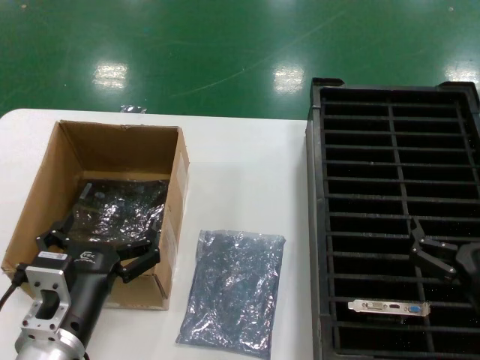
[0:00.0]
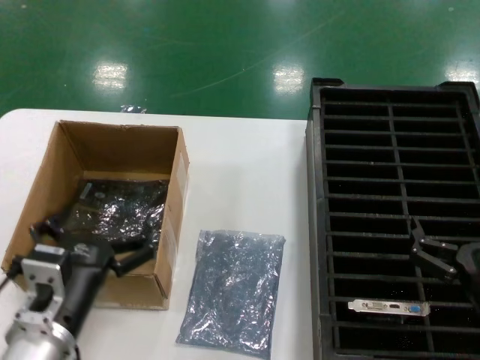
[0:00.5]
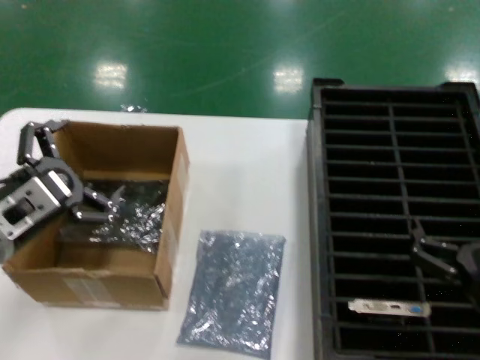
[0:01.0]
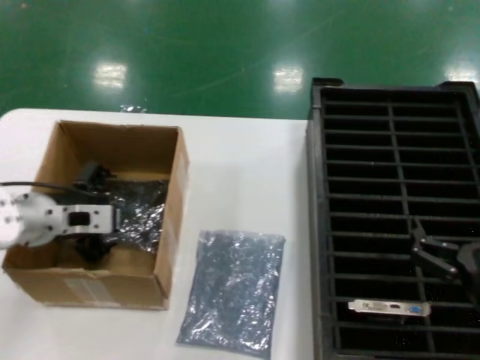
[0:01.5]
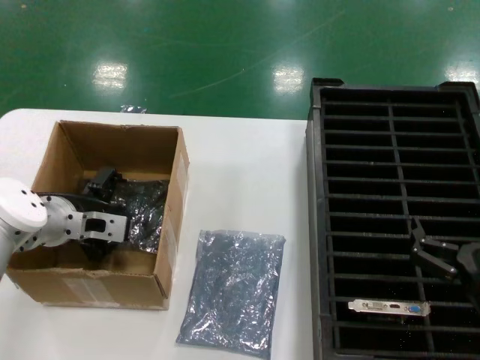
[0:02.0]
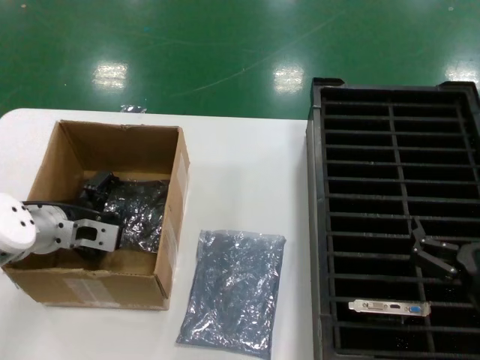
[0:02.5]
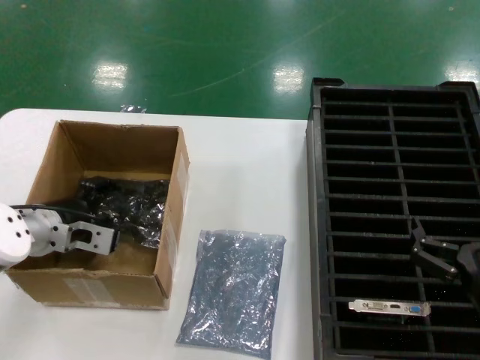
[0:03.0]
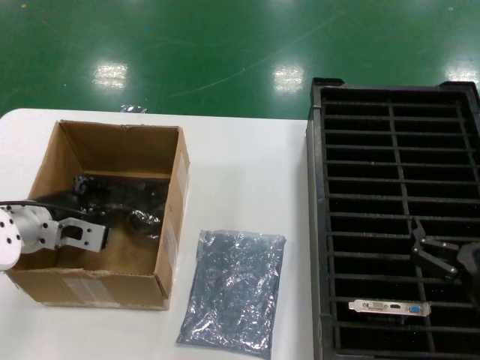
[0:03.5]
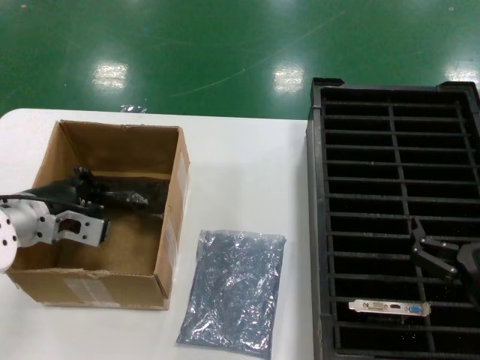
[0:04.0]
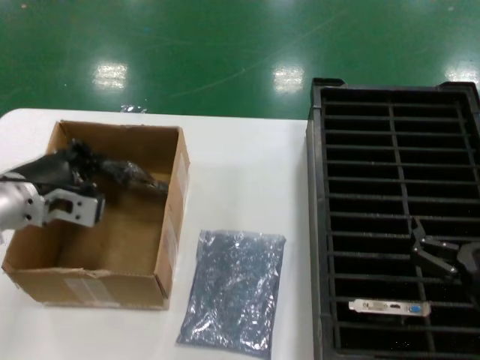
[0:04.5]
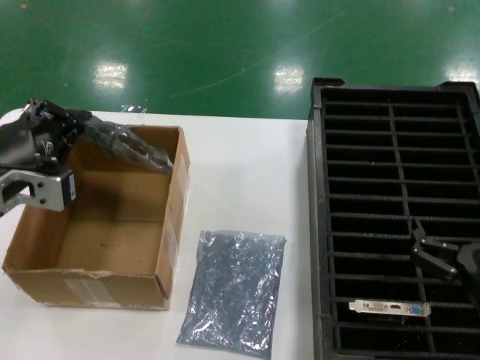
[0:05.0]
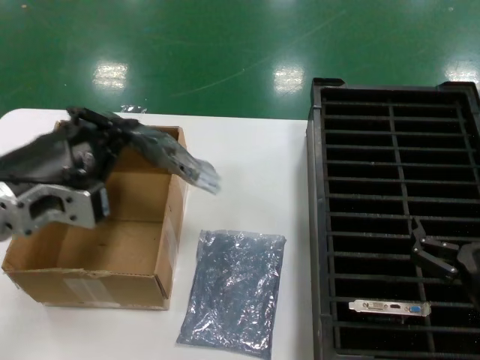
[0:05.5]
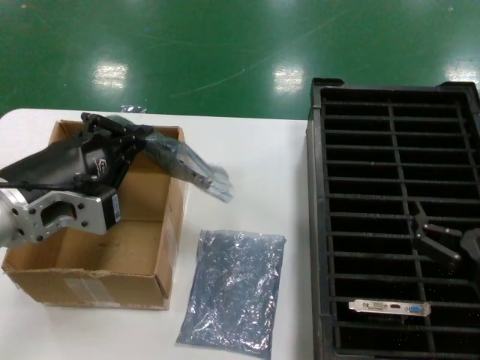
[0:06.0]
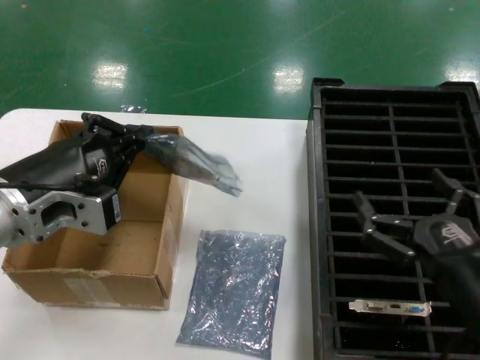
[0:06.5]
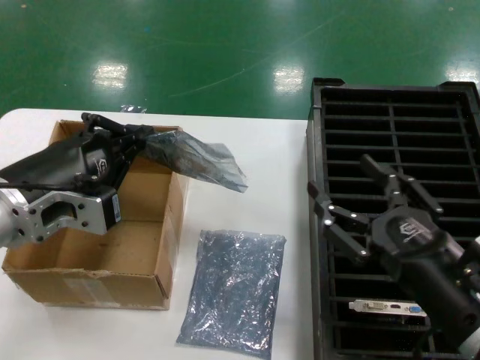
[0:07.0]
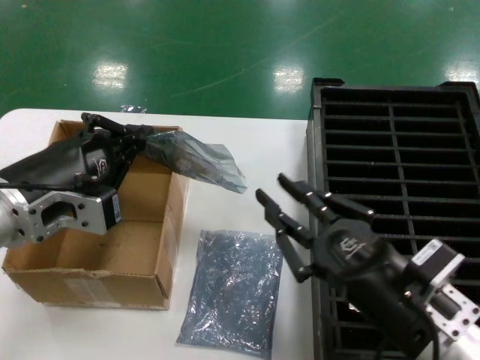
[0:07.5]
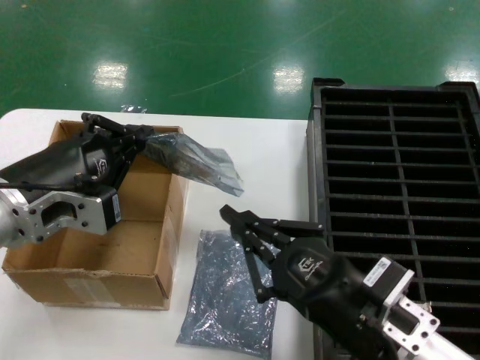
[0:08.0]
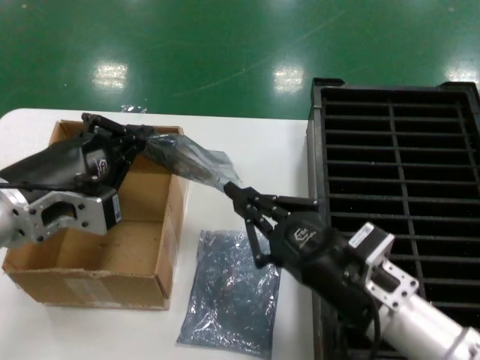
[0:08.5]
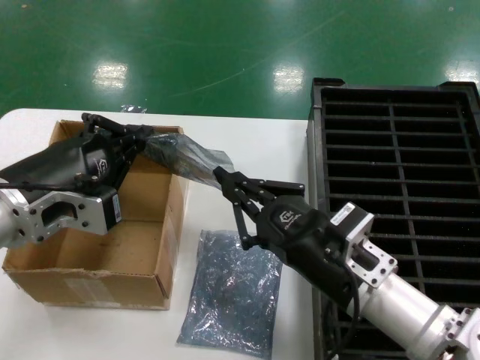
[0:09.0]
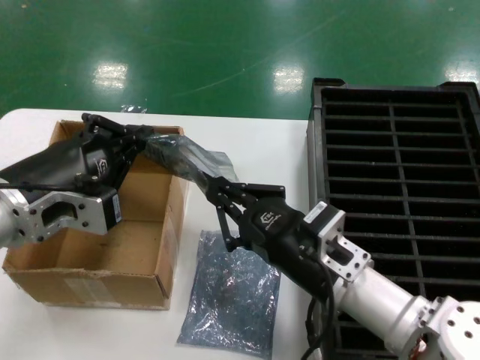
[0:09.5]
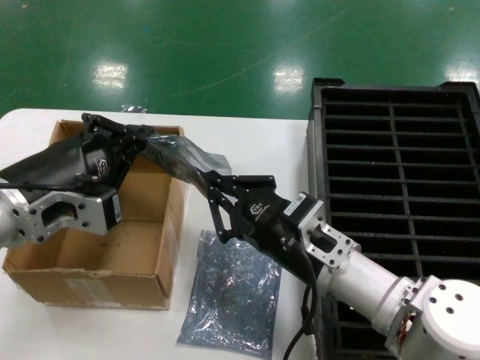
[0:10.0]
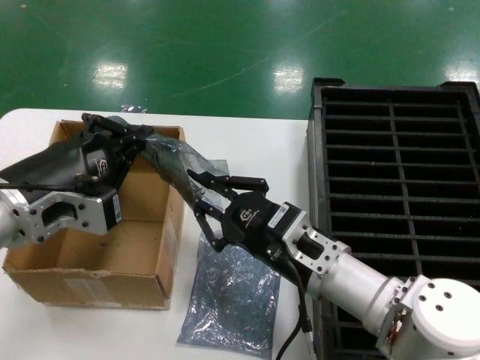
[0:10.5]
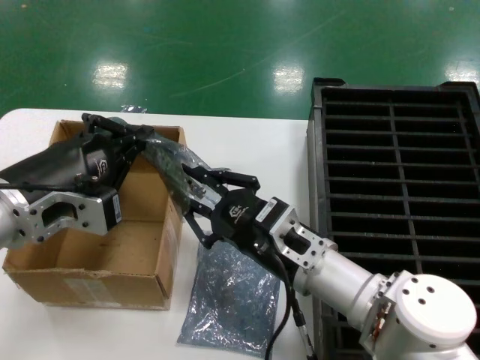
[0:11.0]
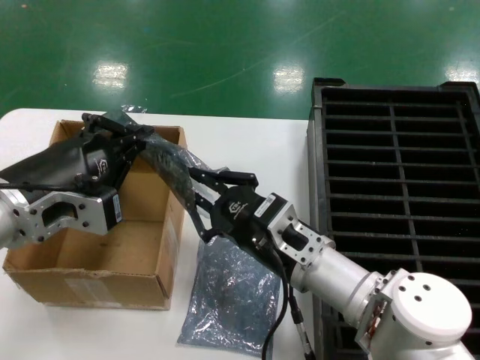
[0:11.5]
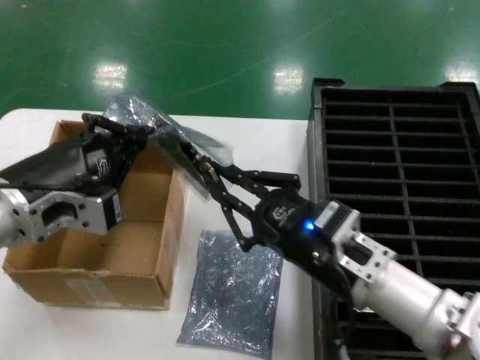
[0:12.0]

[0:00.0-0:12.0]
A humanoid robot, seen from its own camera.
Task of the whole recording: take out graphics card from box remove packaging put into black container.
Step, 0:00.0 to 0:03.5: Grasp the bag.
Step, 0:04.0 to 0:05.5: Lift the bag.
0:00.0 to 0:02.0: The left hand moves forward and to the left, roughly 25 cm.
0:02.0 to 0:04.0: There are only small adjustments of the hands.
0:04.0 to 0:06.0: The left hand goes some 15 cm backward, upward and to the right.
0:06.0 to 0:08.0: The right hand heads to the left, covering some 10 cm.
0:08.0 to 0:10.0: The right hand travels forward and to the left by some 10 cm.
0:10.0 to 0:12.0: The hands stay close to where they were, moving slightly.

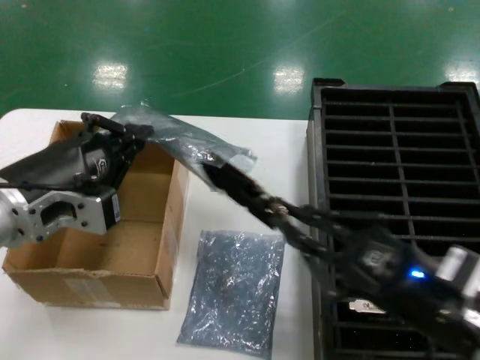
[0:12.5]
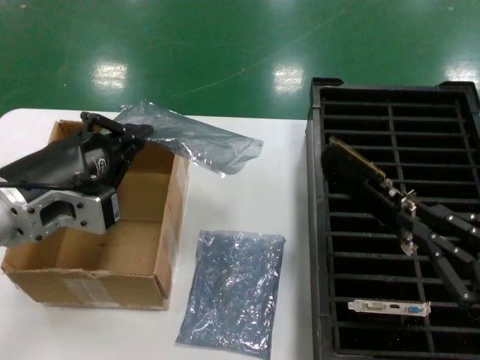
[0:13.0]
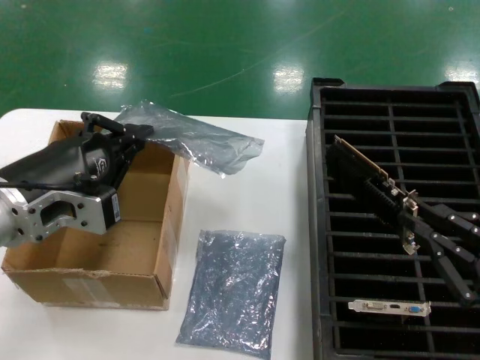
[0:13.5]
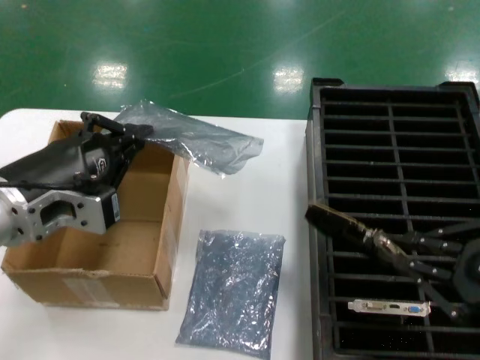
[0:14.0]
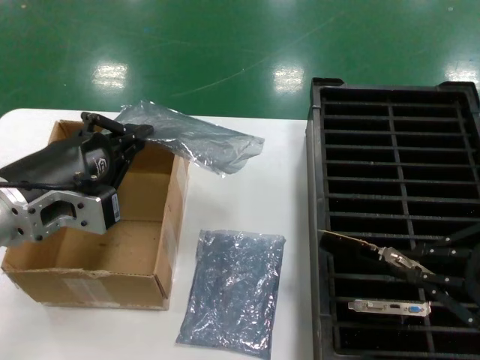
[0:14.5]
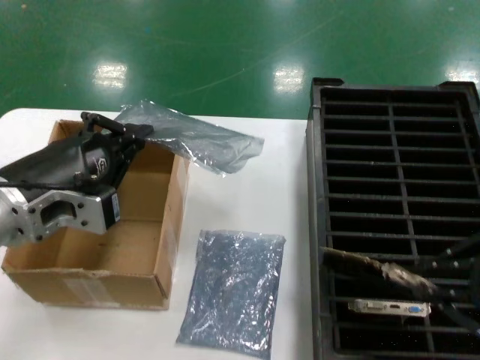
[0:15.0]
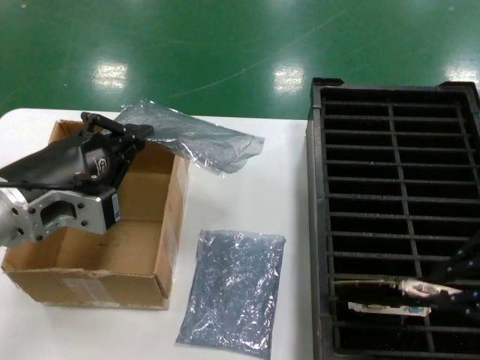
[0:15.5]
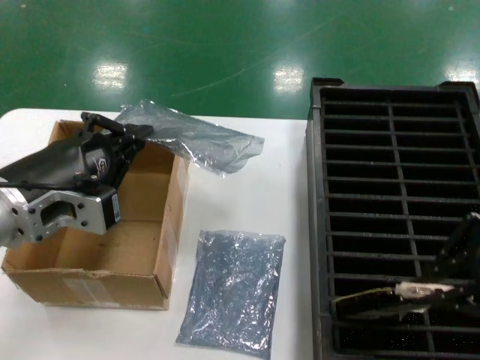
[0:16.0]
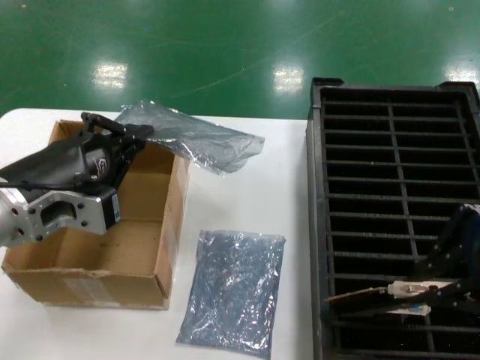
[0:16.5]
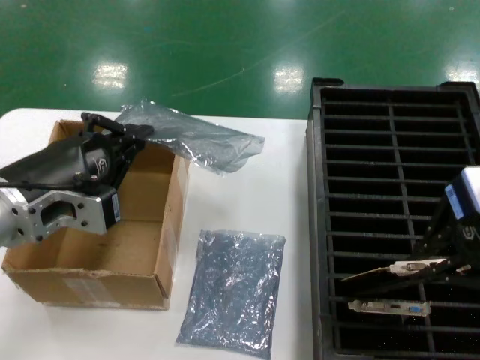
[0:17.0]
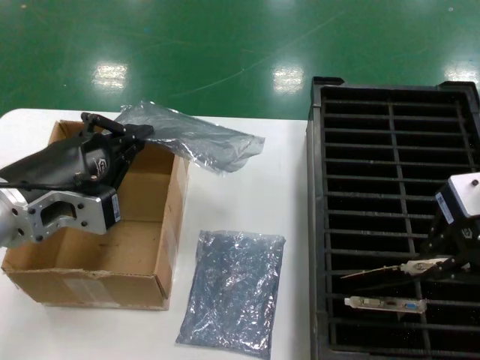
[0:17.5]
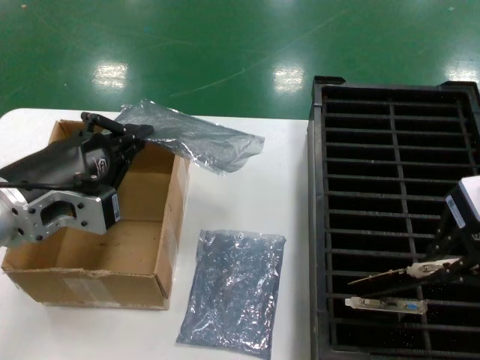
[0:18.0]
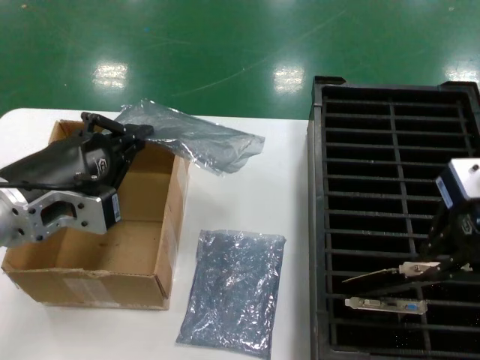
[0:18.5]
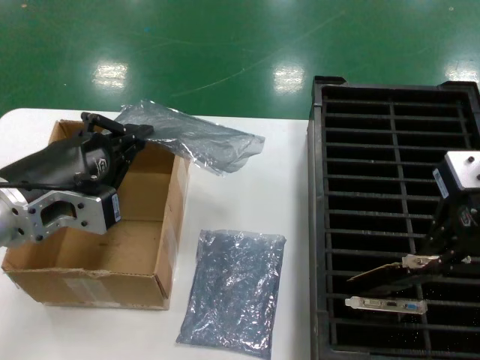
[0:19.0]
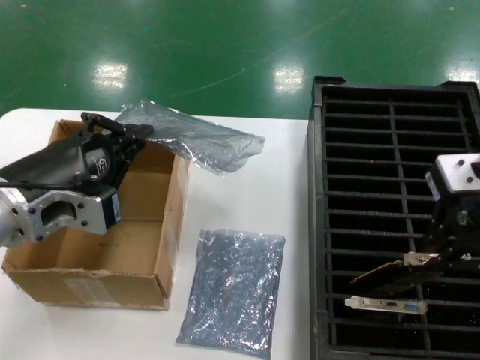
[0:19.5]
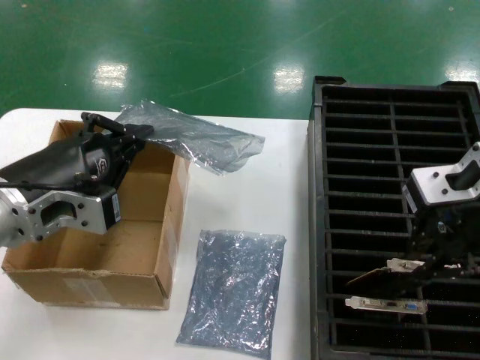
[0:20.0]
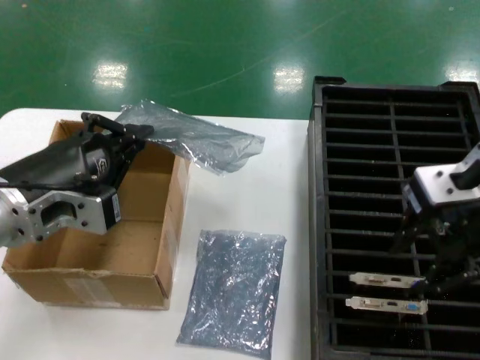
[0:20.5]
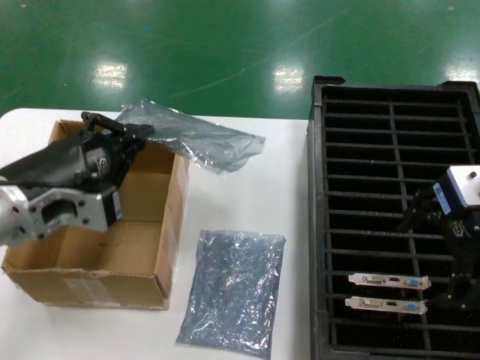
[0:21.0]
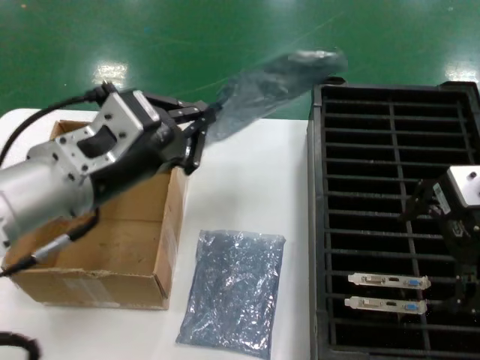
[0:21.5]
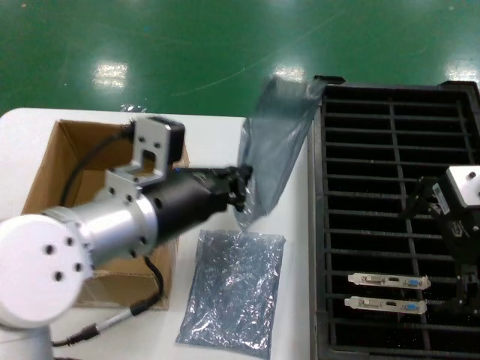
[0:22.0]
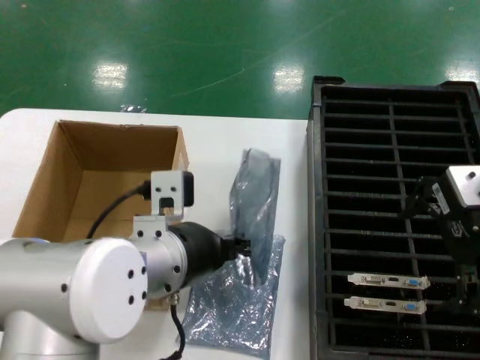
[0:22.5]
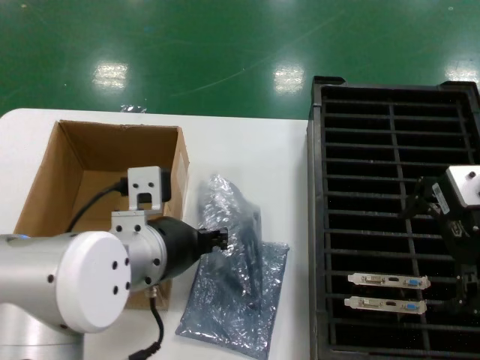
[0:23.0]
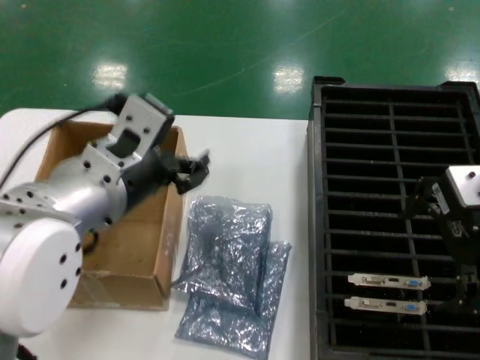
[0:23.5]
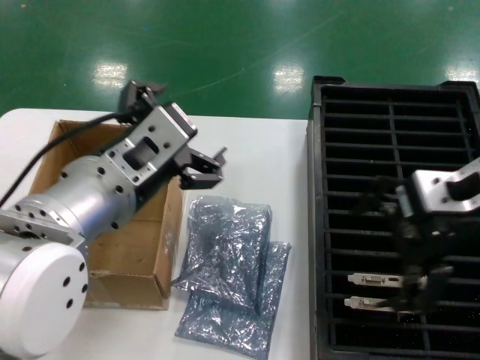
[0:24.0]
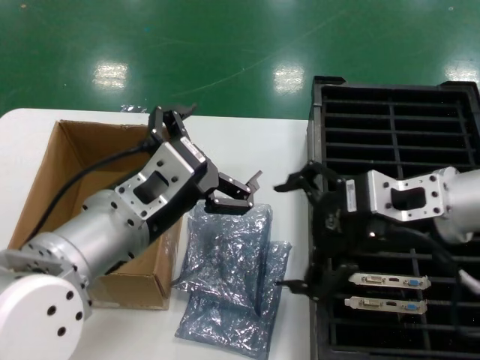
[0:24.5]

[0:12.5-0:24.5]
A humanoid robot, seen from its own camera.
Task of the whole recording: take out graphics card from box remove packaging put into black container.
Step, 0:13.0 to 0:20.0: Place the hard disk in the hard disk enclosure.
Step, 0:20.5 to 0:23.0: Place the down the bag.
0:12.5 to 0:14.5: The right hand goes approximately 15 cm upward and to the right.
0:14.5 to 0:16.5: The right hand heads upward and forward, covering approximately 10 cm.
0:16.5 to 0:18.5: The right hand is displaced forward by some 5 cm.
0:18.5 to 0:20.5: There are only small adjustments of the hands.
0:20.5 to 0:22.5: The left hand travels to the right by roughly 15 cm.
0:22.5 to 0:24.5: The right hand goes roughly 10 cm downward.

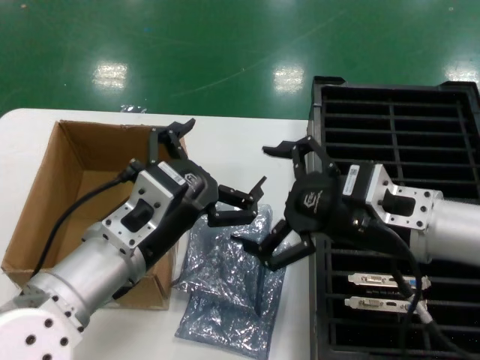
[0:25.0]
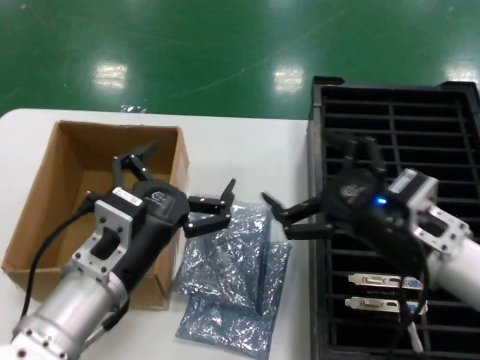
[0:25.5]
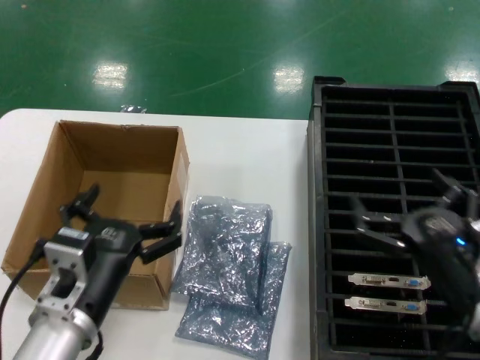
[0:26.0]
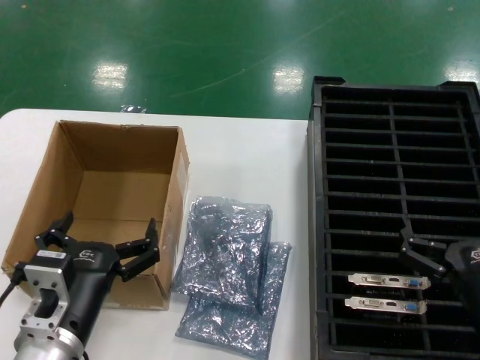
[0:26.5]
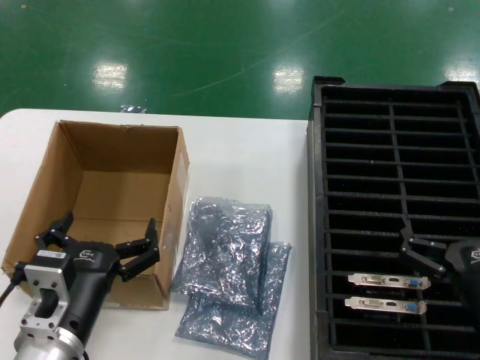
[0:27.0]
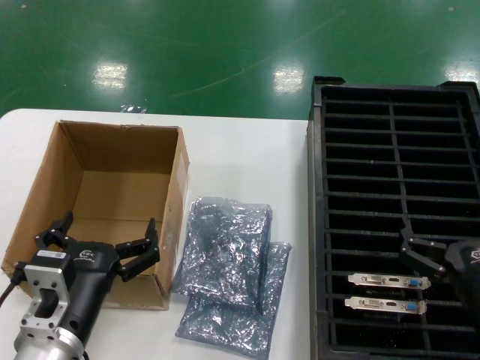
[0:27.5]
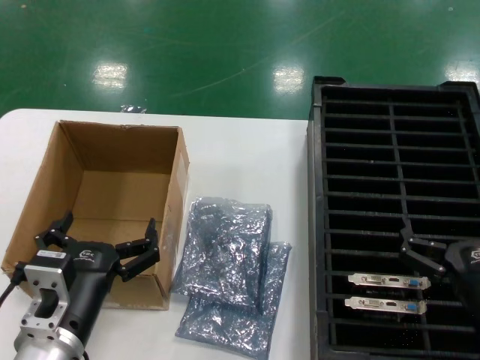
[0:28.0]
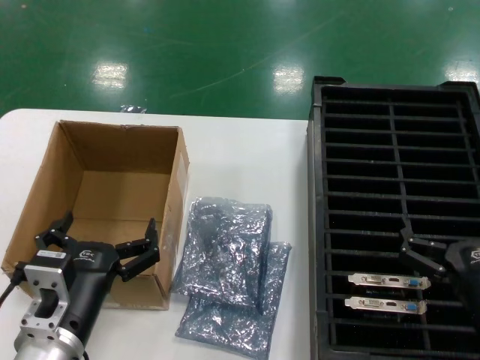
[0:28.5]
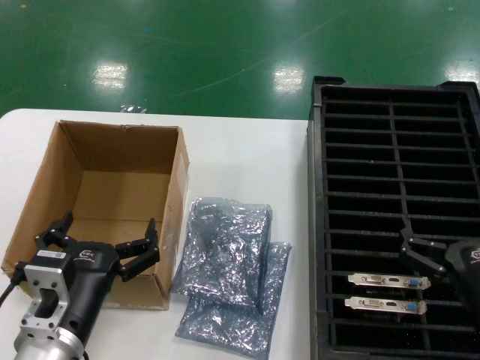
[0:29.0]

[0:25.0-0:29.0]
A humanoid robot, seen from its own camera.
Task of the whole recording: take out graphics card from box remove packaging put into black container.
0:25.0 to 0:27.0: The left hand is displaced downward and to the left by some 15 cm, while the right hand travels downward, backward and to the right by approximately 20 cm.
0:27.0 to 0:29.0: Neither hand changes place.
